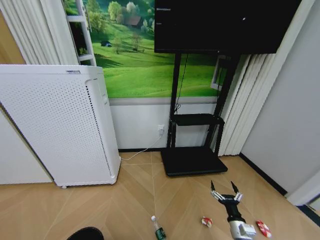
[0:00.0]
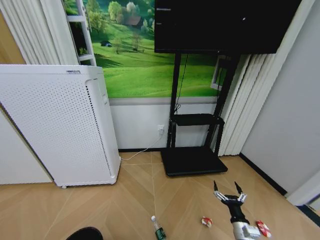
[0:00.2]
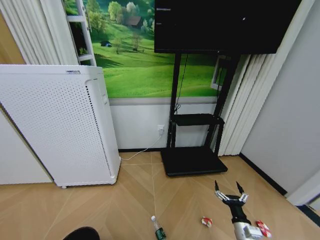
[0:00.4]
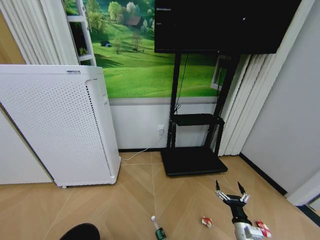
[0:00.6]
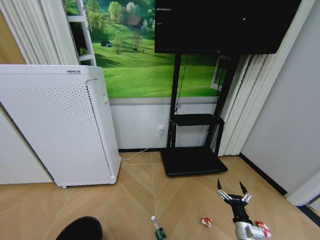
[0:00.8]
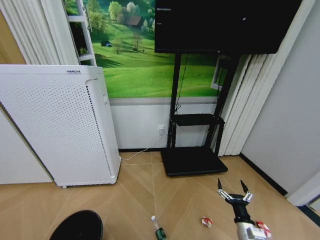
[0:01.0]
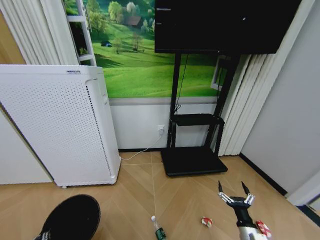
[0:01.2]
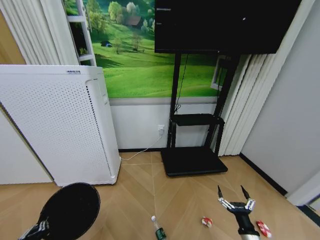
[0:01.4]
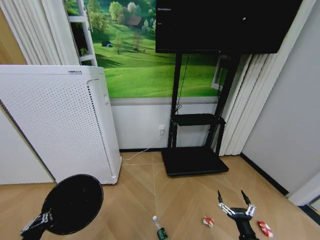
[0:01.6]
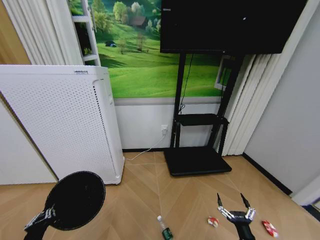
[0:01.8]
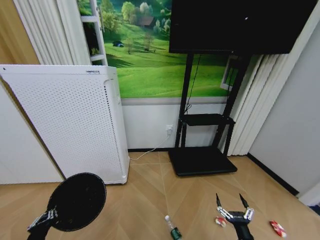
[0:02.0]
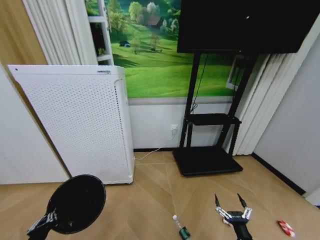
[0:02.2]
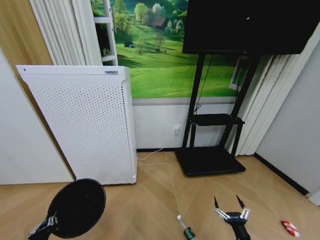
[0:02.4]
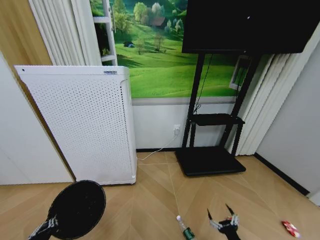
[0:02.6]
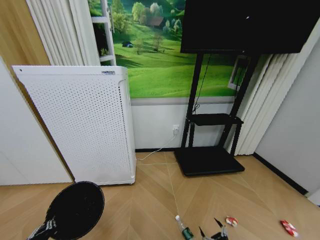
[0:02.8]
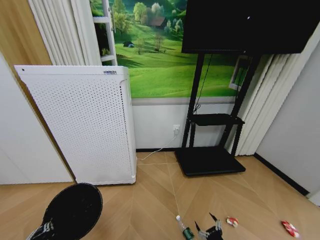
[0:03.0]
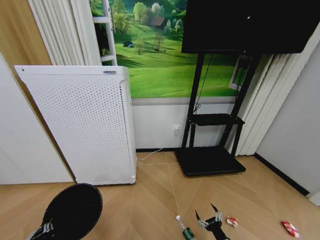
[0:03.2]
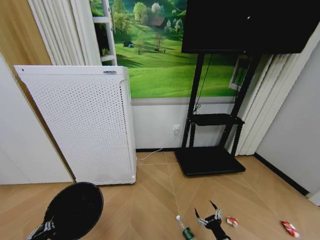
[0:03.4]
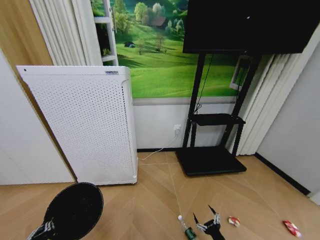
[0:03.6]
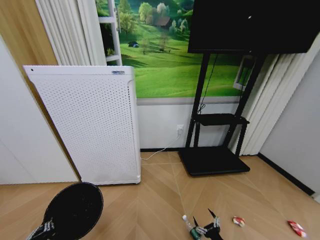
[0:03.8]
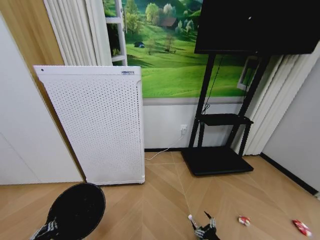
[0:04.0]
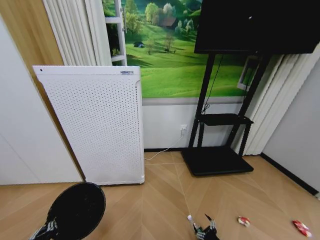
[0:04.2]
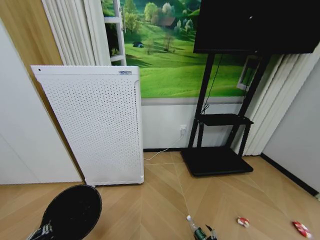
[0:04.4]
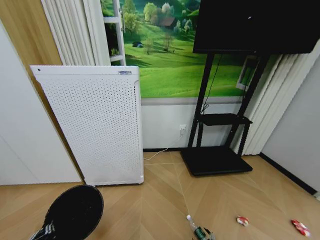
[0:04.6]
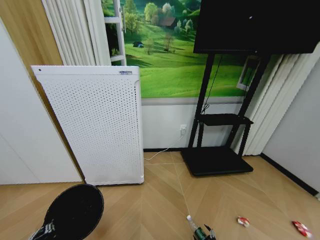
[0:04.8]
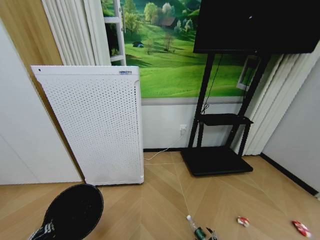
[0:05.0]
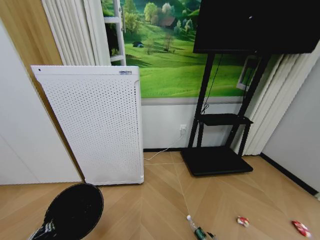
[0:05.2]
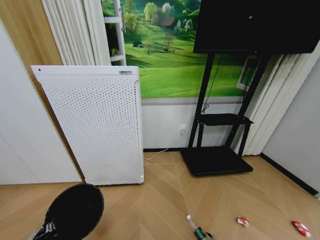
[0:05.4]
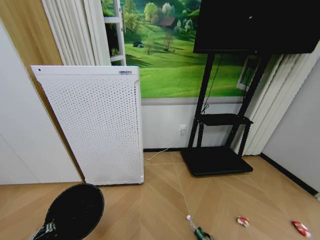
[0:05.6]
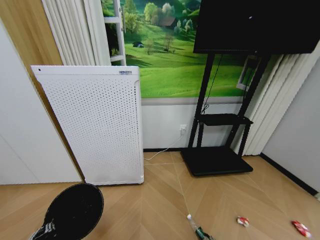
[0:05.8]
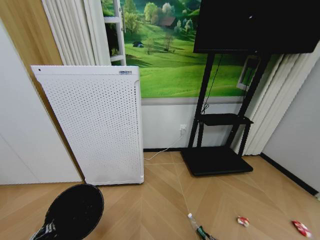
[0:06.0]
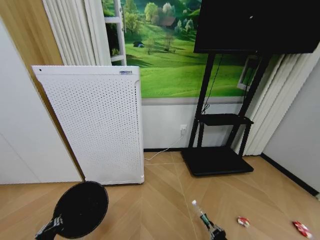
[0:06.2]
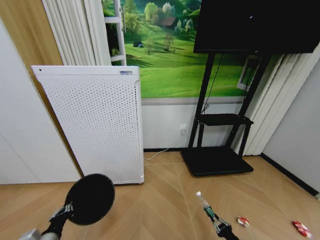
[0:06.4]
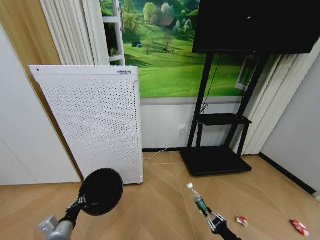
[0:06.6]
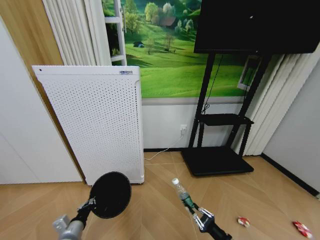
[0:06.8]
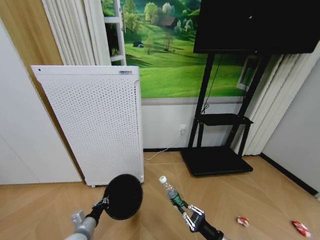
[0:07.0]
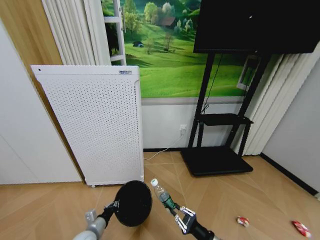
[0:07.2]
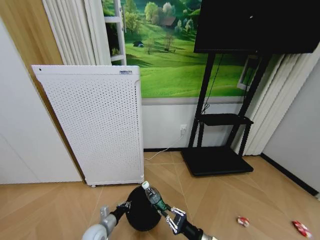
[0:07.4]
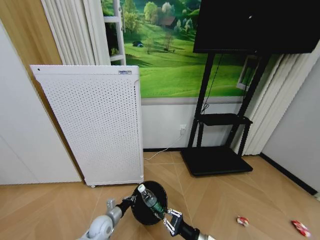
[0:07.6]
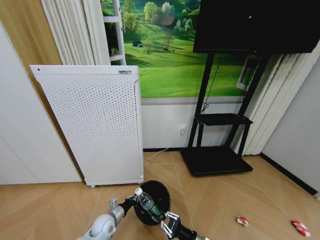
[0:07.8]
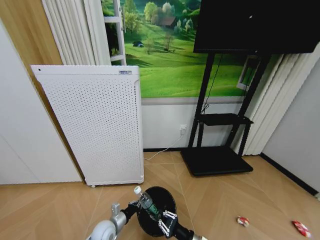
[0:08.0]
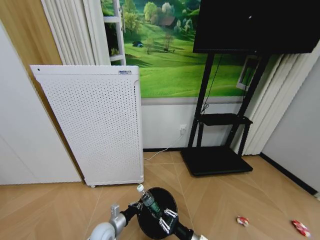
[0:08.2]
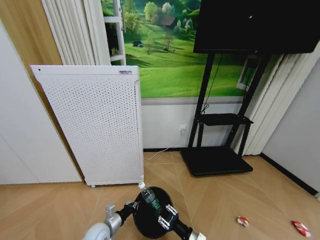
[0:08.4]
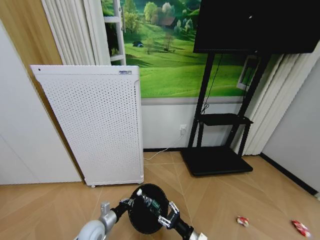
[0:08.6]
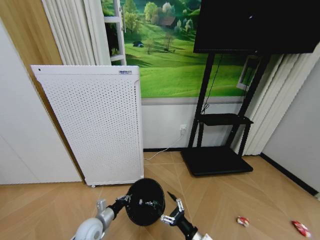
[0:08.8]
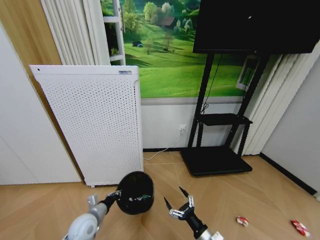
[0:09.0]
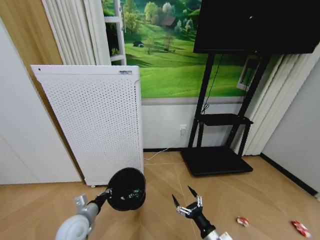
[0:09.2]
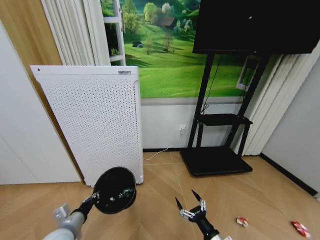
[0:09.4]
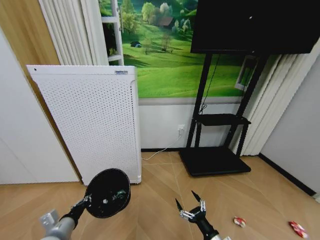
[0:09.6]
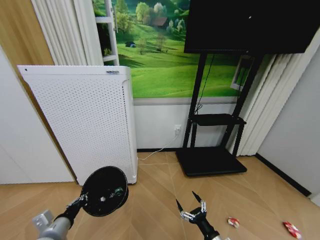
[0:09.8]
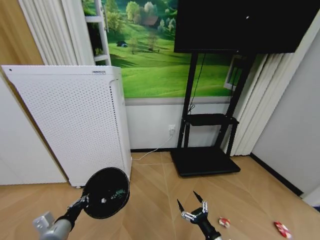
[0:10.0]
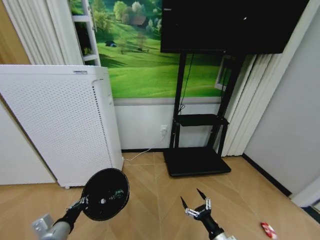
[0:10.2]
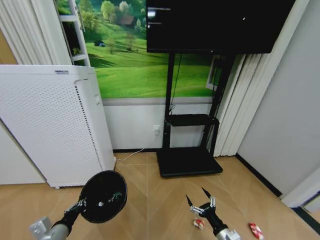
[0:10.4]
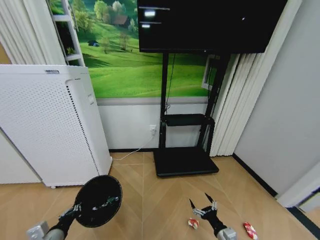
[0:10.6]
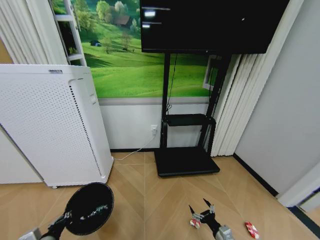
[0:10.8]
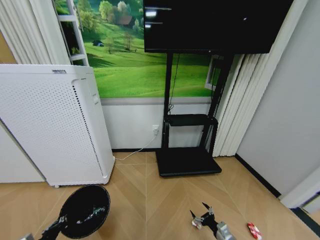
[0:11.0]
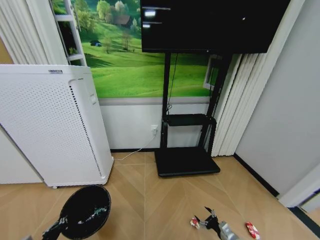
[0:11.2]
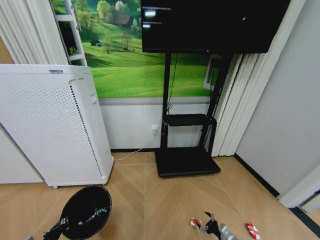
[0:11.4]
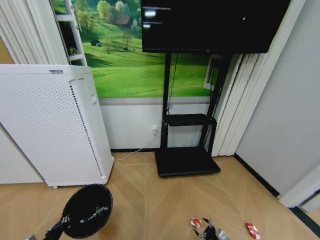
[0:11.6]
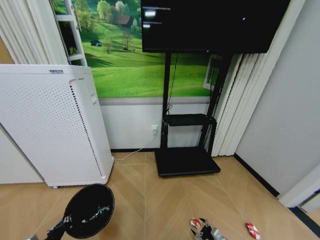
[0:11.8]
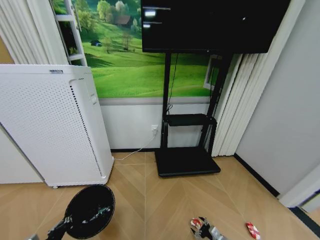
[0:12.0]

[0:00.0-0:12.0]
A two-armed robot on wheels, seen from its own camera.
Task of the whole recording: Pick up the trash bin and place the garbage on the floor into it.
0:00.0 to 0:01.6: The right gripper goes about 5 cm backward, while the left gripper travels upward and forward by approximately 10 cm, and closes its fingers.
0:01.6 to 0:03.0: The right gripper is displaced downward by some 5 cm.
0:03.0 to 0:04.4: The right gripper is displaced downward by about 10 cm.
0:06.0 to 0:07.6: The left gripper shifts roughly 25 cm forward, downward and to the right. Meanwhile the right gripper is displaced upward and to the left by approximately 25 cm.
0:07.6 to 0:09.0: The right gripper opens. The left gripper travels upward by approximately 10 cm.
0:09.0 to 0:10.4: The right gripper goes some 10 cm to the right, while the left gripper heads backward, upward and to the left, covering some 15 cm.
0:10.4 to 0:12.0: The right gripper shifts roughly 20 cm downward and to the right. The left gripper ends up approximately 5 cm from where it was.

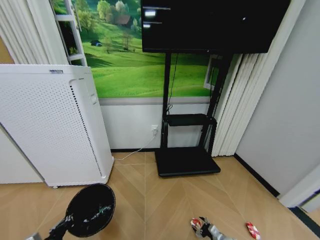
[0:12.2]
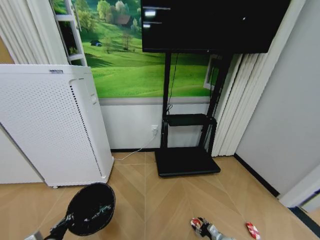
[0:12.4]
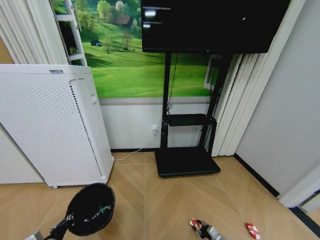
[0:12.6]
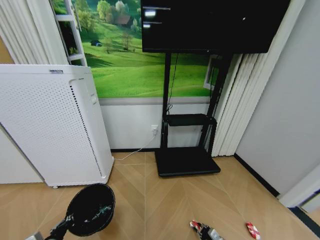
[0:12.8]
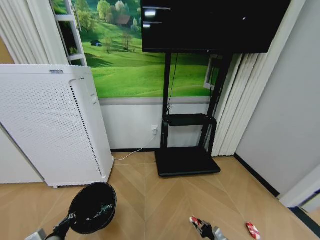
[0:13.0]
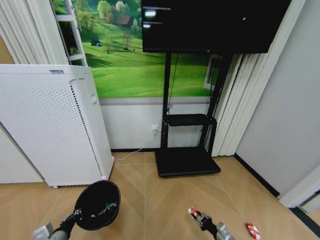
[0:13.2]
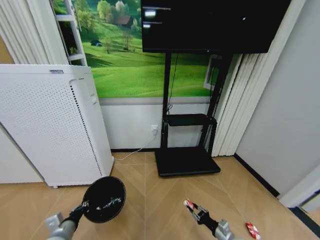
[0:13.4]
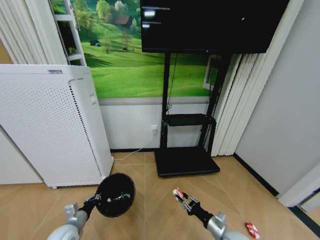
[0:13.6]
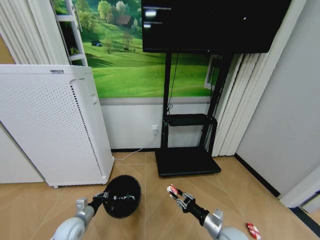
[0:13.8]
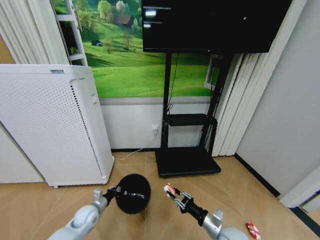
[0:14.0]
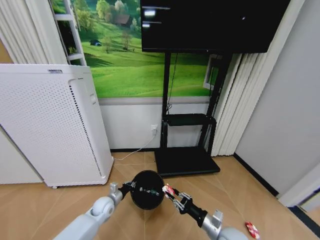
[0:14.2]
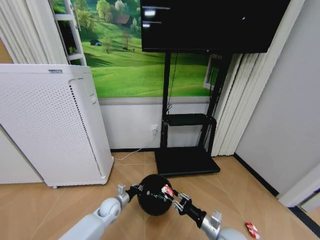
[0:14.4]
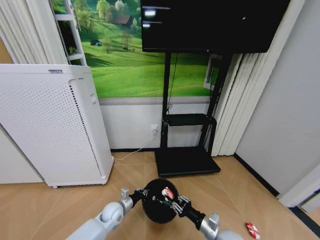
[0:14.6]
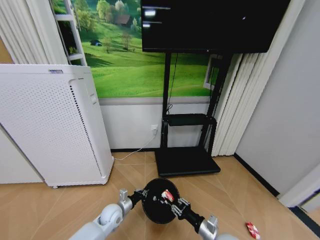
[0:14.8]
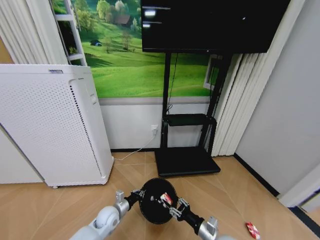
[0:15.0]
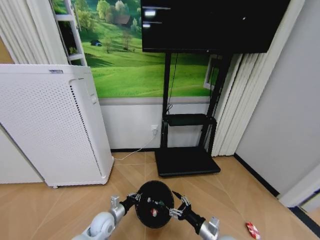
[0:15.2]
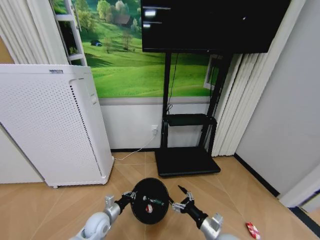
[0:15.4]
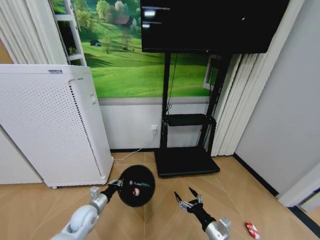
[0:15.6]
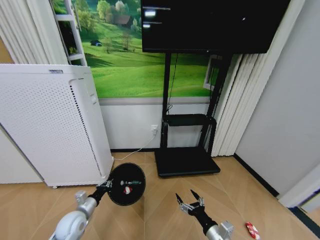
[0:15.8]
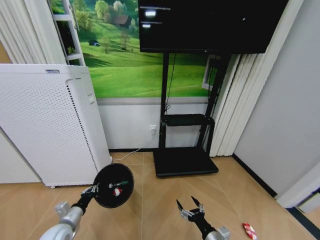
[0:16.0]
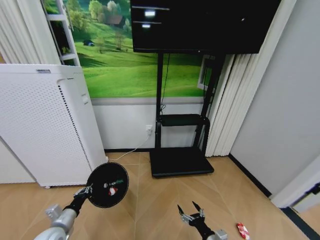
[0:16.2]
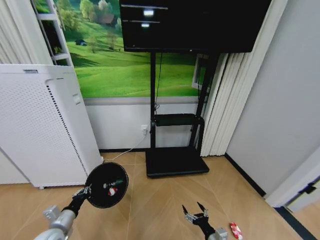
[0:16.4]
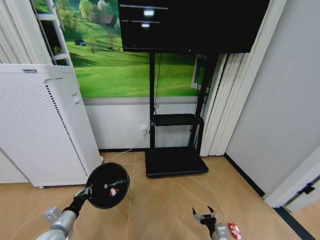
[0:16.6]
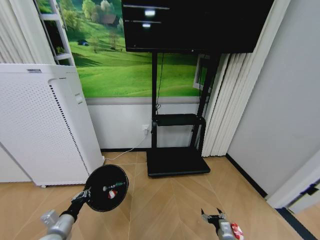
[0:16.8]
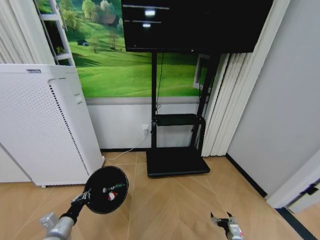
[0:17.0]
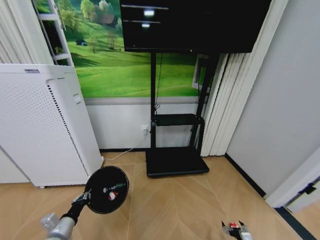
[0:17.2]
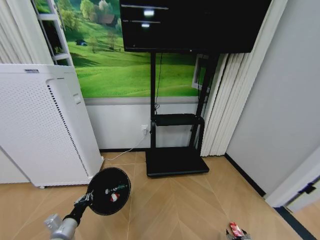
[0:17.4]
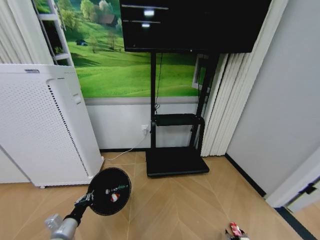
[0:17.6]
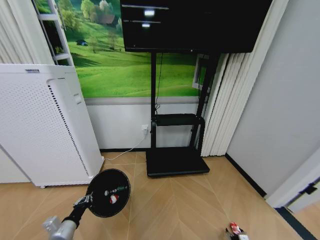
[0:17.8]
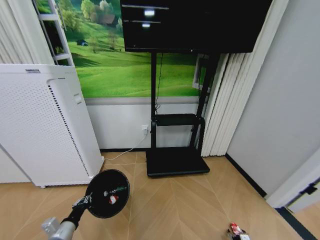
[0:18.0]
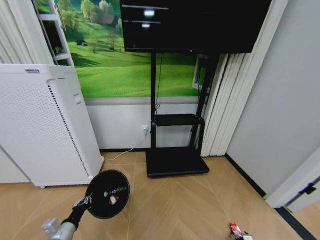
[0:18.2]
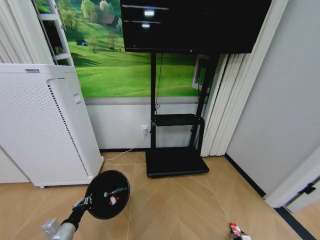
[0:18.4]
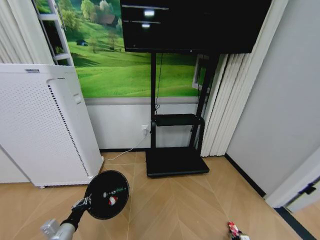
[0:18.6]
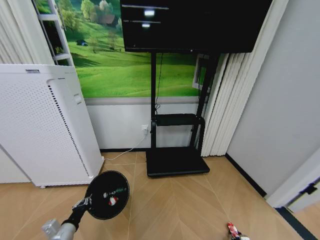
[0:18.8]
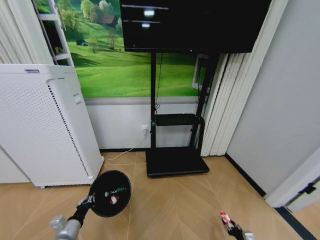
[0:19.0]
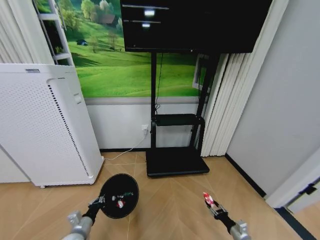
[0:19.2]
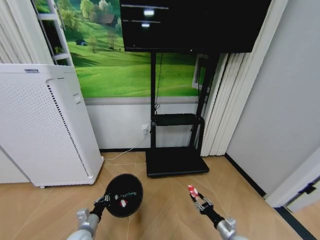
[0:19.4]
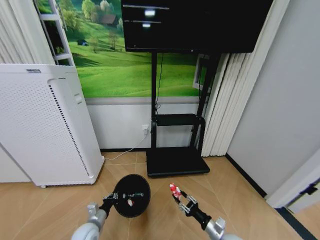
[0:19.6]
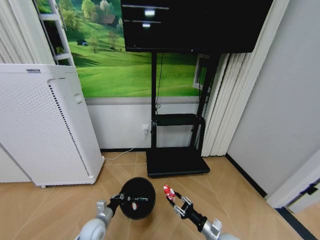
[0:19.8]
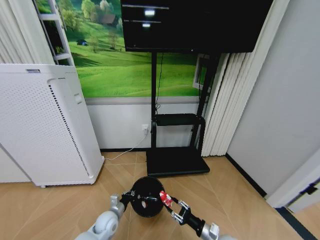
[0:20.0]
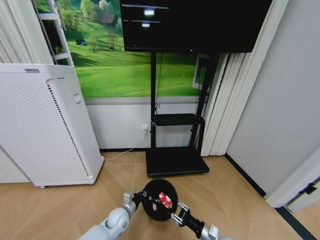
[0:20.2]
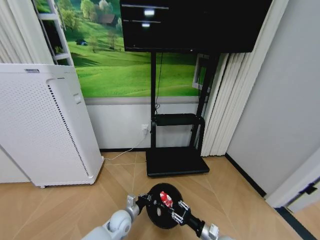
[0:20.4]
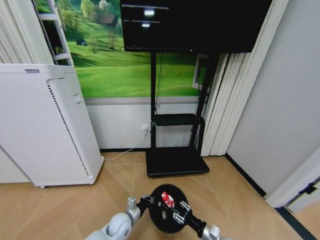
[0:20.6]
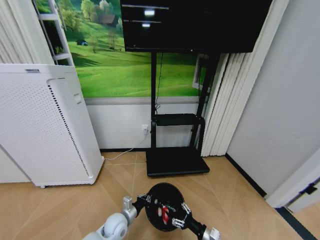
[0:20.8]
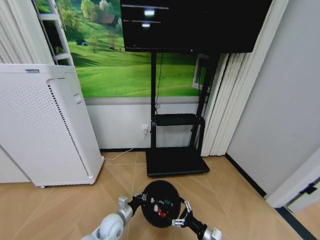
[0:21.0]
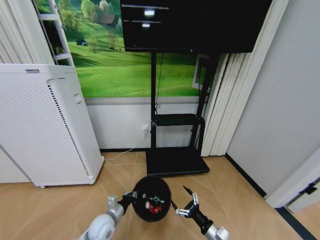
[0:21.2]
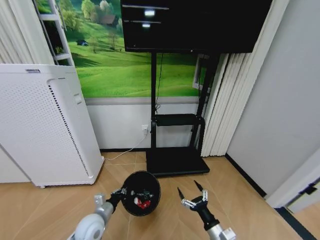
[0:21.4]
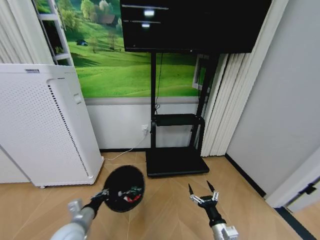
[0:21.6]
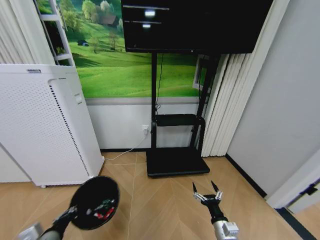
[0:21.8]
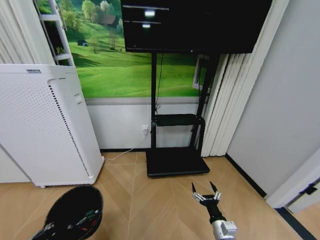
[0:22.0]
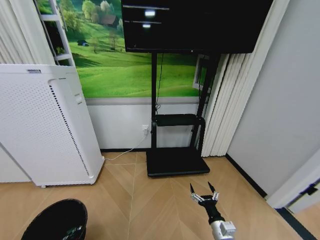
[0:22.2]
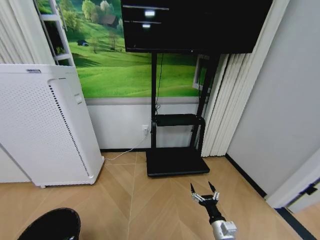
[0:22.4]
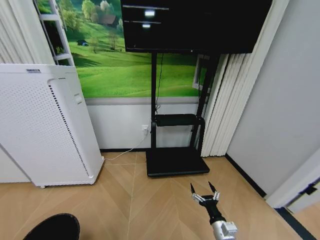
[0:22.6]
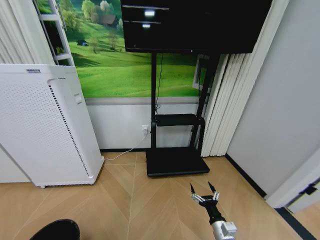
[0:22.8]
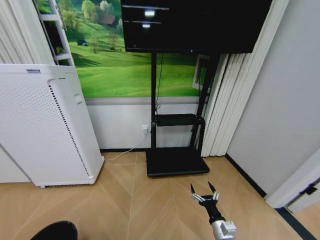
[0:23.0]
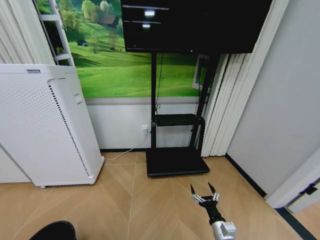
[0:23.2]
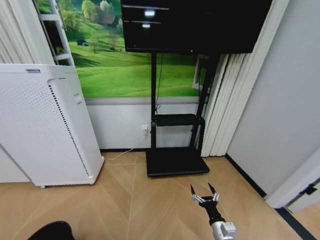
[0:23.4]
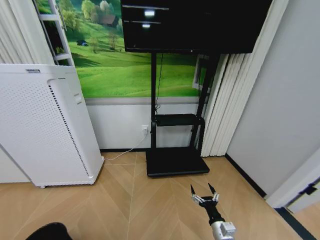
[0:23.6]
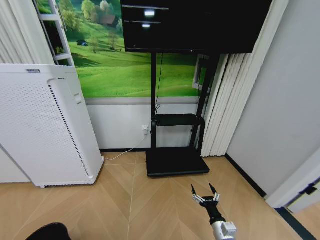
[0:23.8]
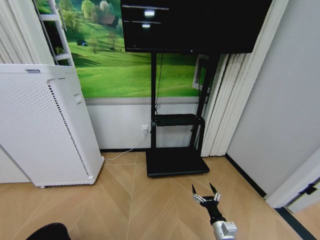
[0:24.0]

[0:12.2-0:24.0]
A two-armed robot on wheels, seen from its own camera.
Task of the whole recording: Pick up the trash bin and place the garbage on the floor into it.
0:12.2 to 0:13.6: The right gripper goes about 20 cm upward and to the left, and closes, while the left gripper moves forward, roughly 10 cm.
0:13.6 to 0:15.2: The left gripper is displaced to the right, forward and downward by approximately 15 cm; the right gripper heads to the left, covering some 5 cm, and opens up.
0:15.2 to 0:16.6: The left gripper moves to the left, backward and upward, roughly 20 cm. Meanwhile the right gripper shifts some 10 cm downward.
0:16.6 to 0:18.2: The right gripper is displaced to the right and downward by about 30 cm.
0:18.2 to 0:19.6: The right gripper heads to the left and upward, covering roughly 30 cm, and closes its fingers. The left gripper heads to the right, forward and downward, covering approximately 10 cm.
0:19.6 to 0:21.0: The right gripper opens up. Meanwhile the left gripper moves to the right, some 10 cm.
0:21.0 to 0:22.6: The left gripper is displaced to the left and backward by some 35 cm.
0:22.6 to 0:24.0: The left gripper ends up approximately 5 cm from where it was, and opens its fingers.
